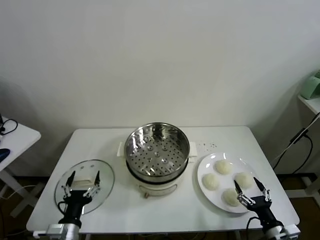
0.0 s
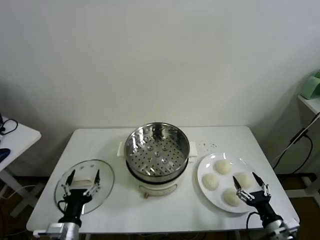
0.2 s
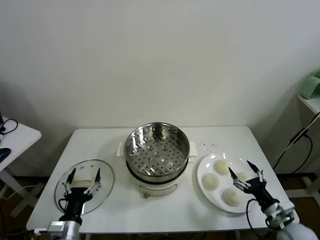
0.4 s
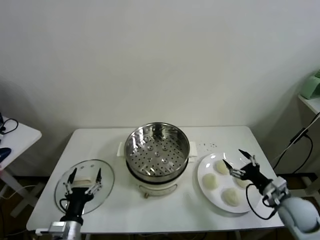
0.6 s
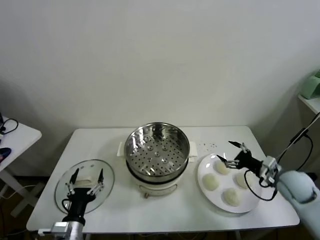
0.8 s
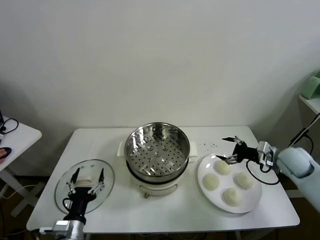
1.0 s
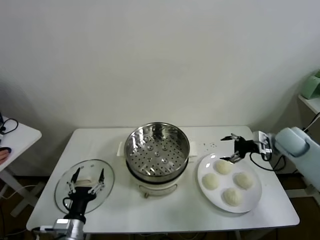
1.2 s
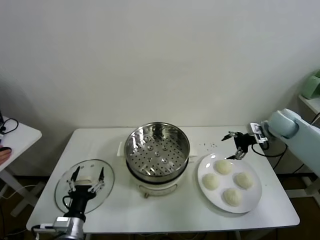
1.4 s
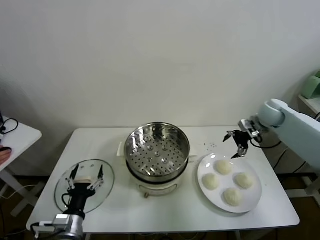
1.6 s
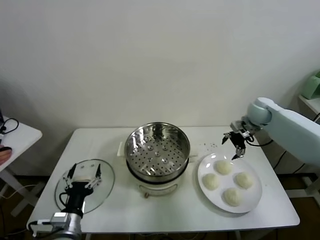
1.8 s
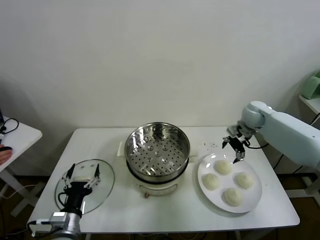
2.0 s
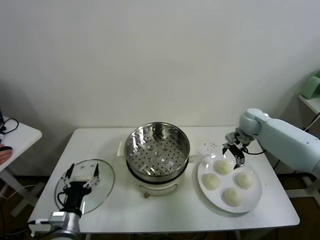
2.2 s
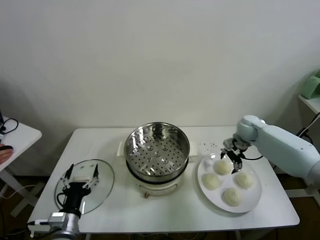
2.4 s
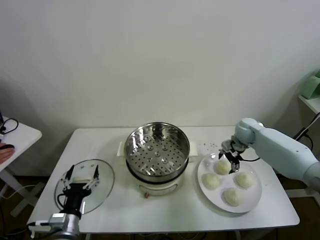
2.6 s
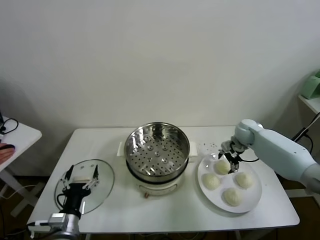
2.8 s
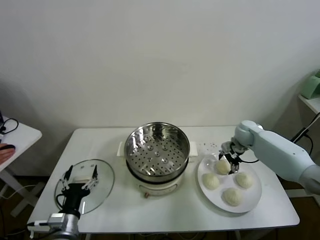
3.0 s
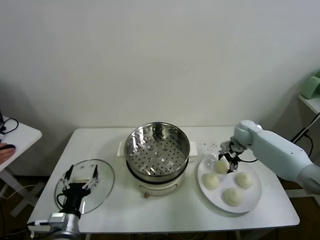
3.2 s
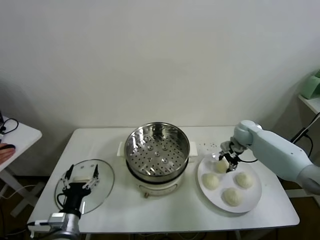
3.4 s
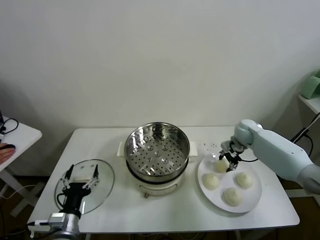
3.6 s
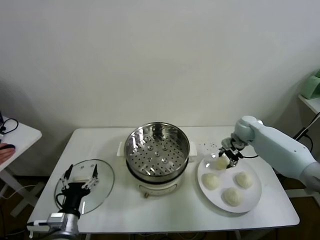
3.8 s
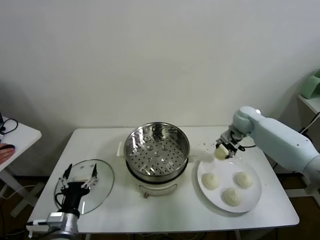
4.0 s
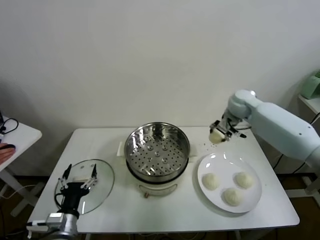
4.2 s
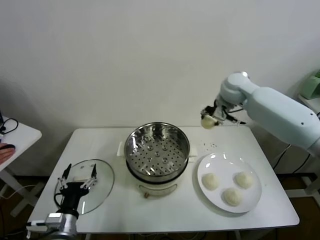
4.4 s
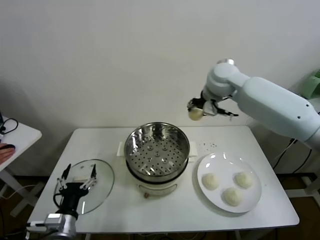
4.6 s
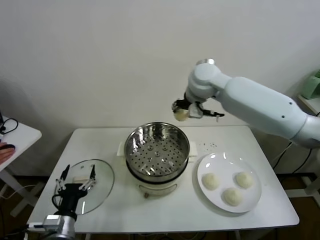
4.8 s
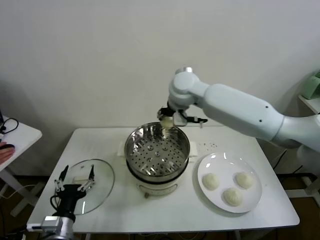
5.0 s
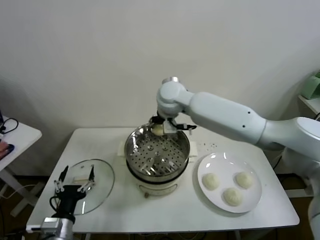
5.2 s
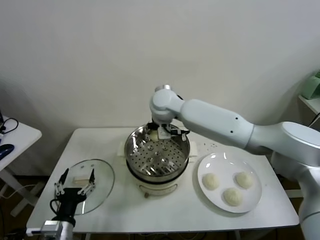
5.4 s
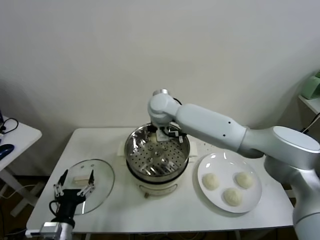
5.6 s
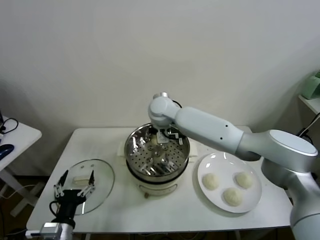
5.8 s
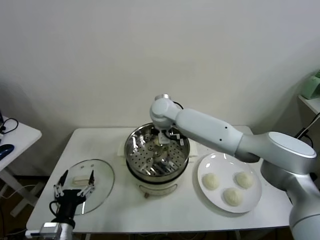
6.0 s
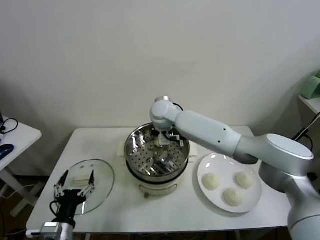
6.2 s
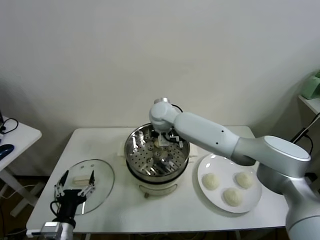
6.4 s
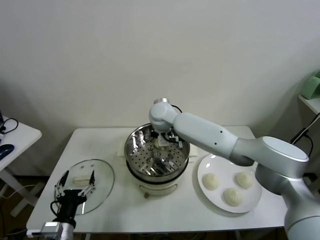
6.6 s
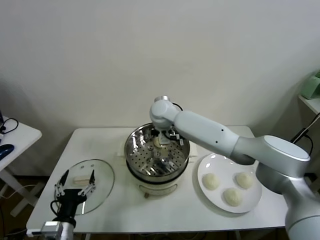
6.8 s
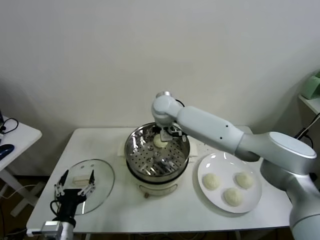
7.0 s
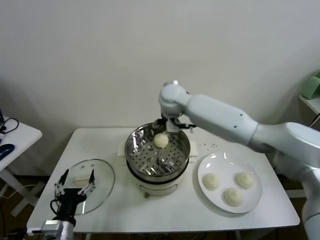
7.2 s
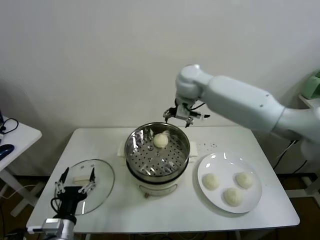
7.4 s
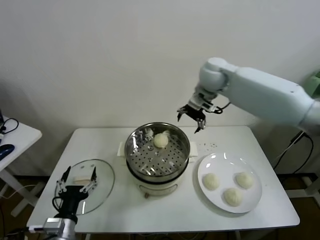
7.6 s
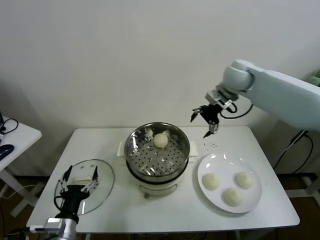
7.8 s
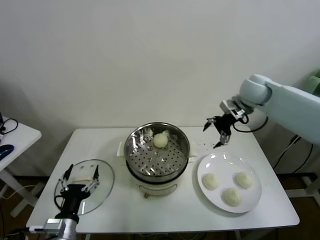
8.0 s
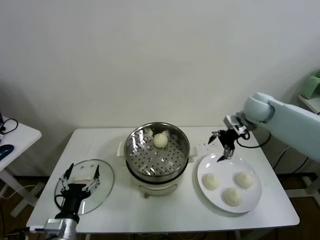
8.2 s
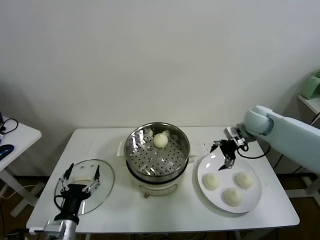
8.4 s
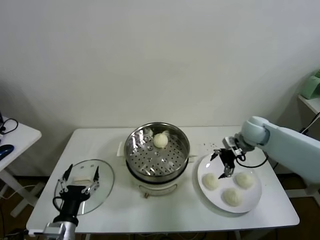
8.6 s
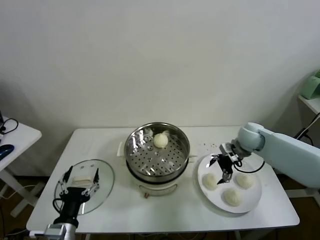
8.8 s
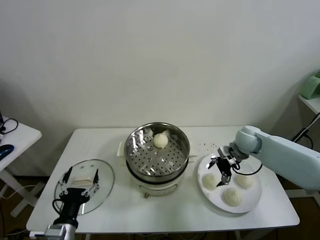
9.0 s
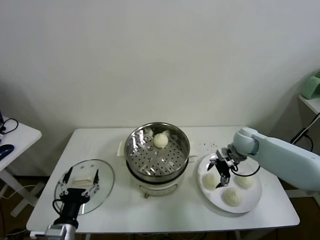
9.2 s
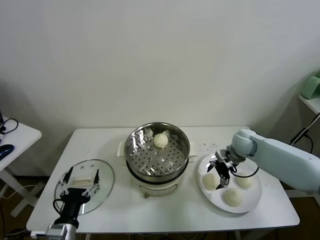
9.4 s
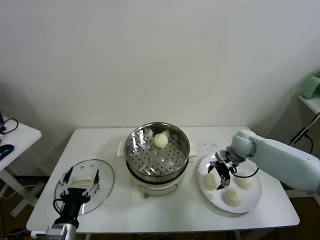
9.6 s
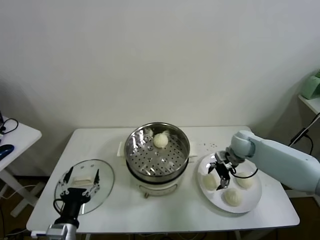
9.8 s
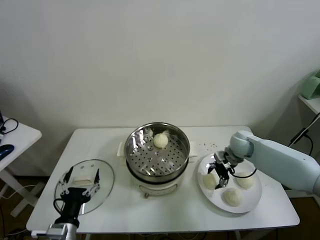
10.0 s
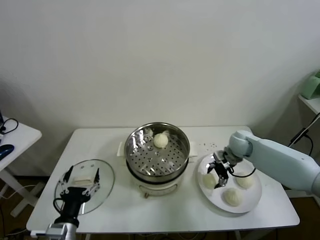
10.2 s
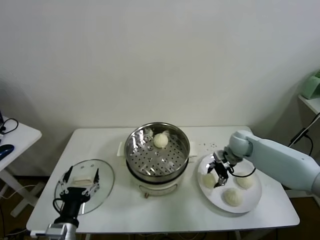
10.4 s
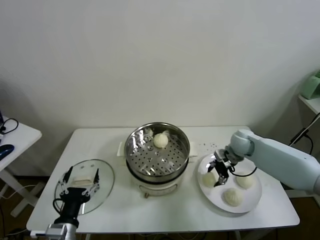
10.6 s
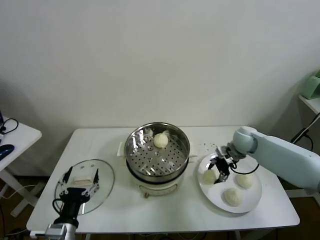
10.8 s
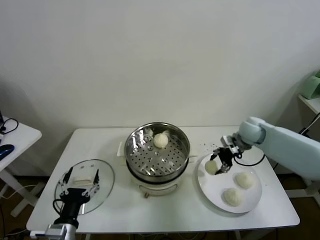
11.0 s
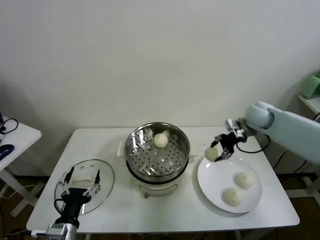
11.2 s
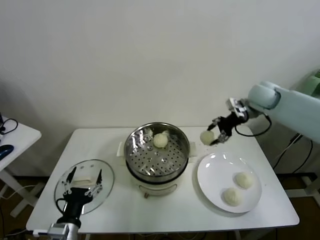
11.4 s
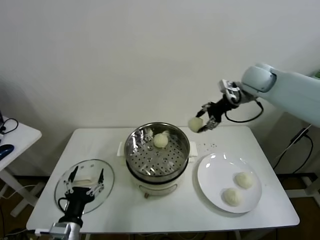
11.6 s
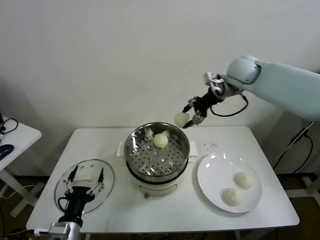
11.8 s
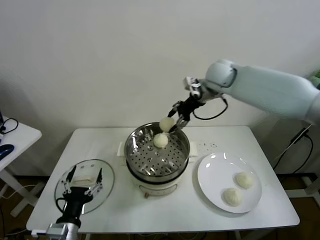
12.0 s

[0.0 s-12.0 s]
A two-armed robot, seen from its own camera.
Task of the whole recording: take steamed baozi put them in steamer.
Step, 0.0 to 3.2 s: Grasp the baozi in the plate with right gripper.
Step, 3.4 to 6.8 s: Place the baozi on the steamer with right gripper.
Step, 7.0 to 10.0 s: Grasp the baozi in the plate with right gripper.
1.6 to 3.0 s: The right gripper shifts some 10 cm downward.
3.0 to 4.4 s: The right gripper goes roughly 30 cm upward and to the left, and closes its fingers.
4.4 to 6.0 s: The right gripper shifts approximately 25 cm to the left and downward.
6.0 to 7.6 s: The right gripper moves to the right and upward, approximately 25 cm, and opens.
7.6 to 9.0 s: The right gripper heads downward and to the right, covering some 25 cm.
9.0 to 10.4 s: The right gripper closes up.
10.4 to 12.0 s: The right gripper shifts about 30 cm upward and to the left.

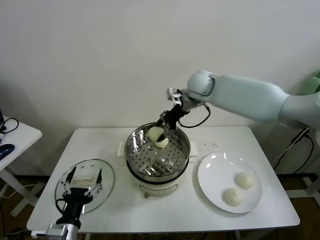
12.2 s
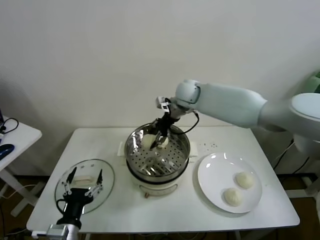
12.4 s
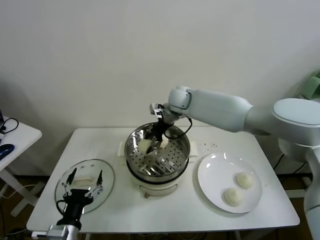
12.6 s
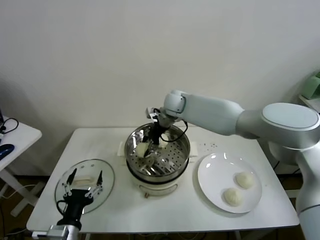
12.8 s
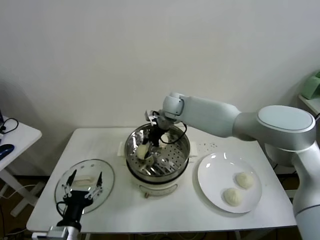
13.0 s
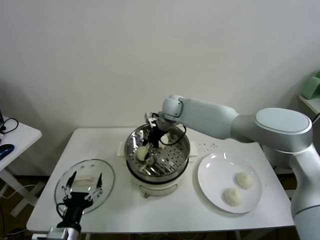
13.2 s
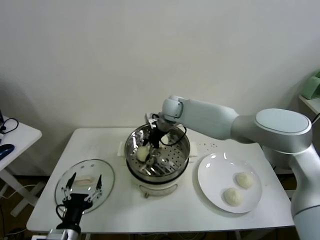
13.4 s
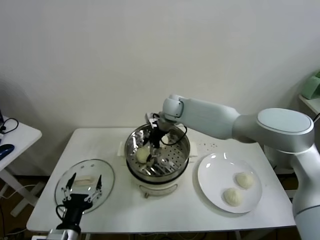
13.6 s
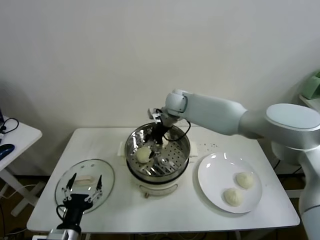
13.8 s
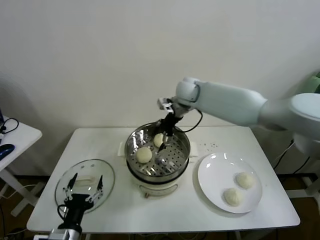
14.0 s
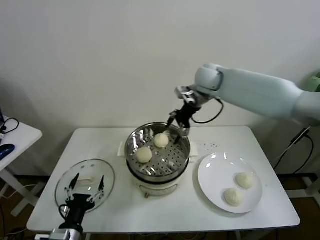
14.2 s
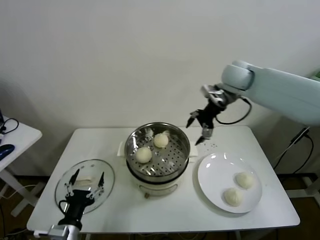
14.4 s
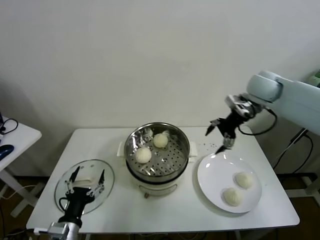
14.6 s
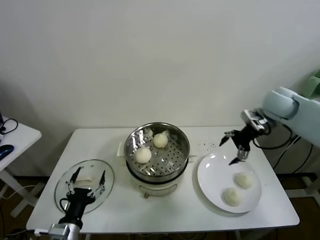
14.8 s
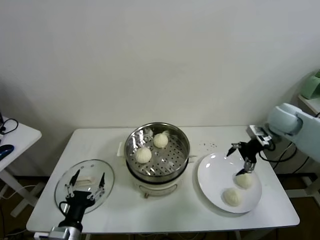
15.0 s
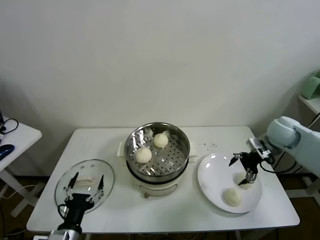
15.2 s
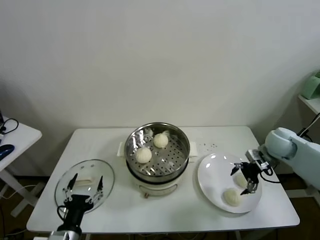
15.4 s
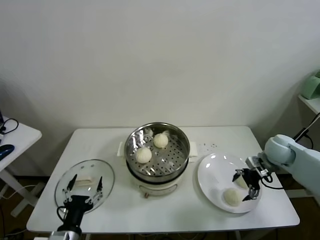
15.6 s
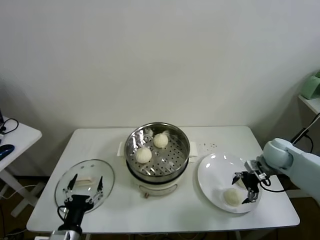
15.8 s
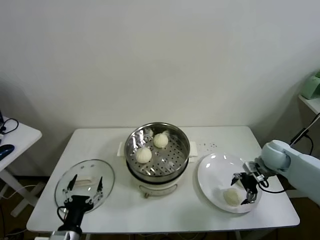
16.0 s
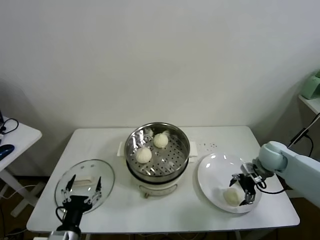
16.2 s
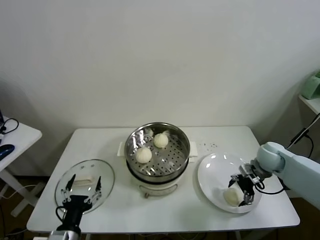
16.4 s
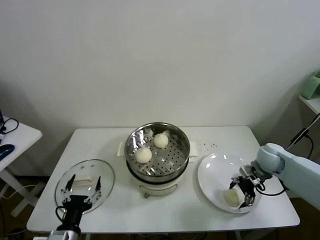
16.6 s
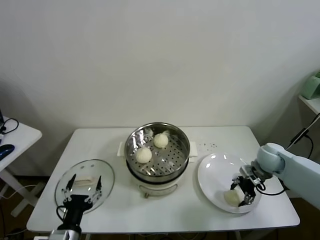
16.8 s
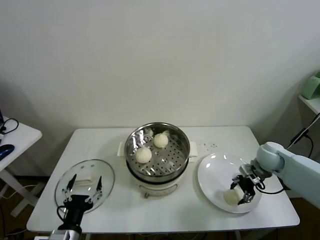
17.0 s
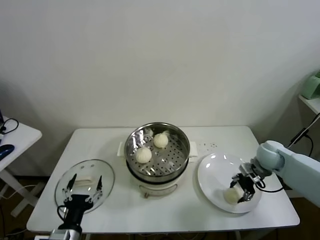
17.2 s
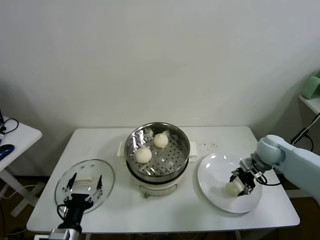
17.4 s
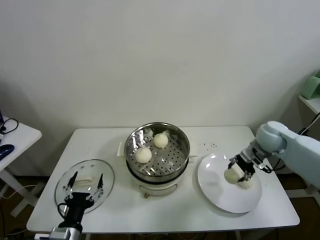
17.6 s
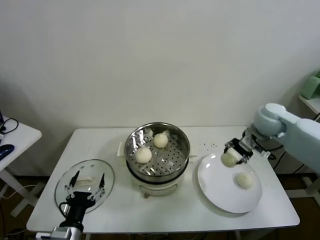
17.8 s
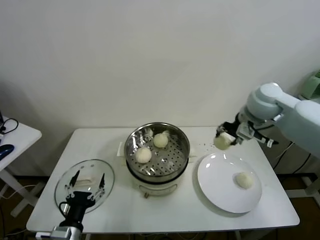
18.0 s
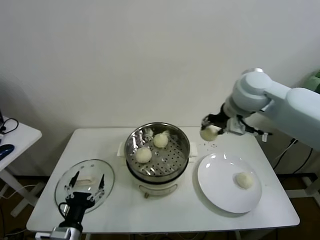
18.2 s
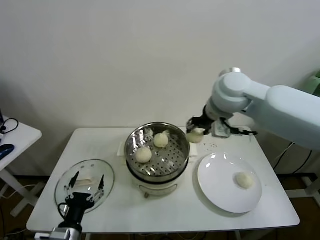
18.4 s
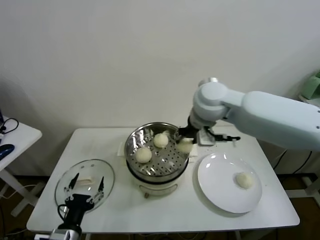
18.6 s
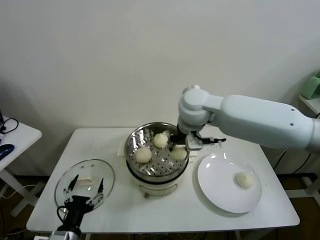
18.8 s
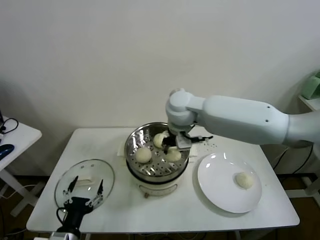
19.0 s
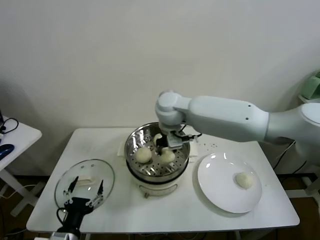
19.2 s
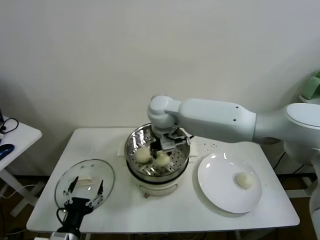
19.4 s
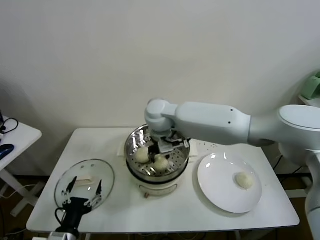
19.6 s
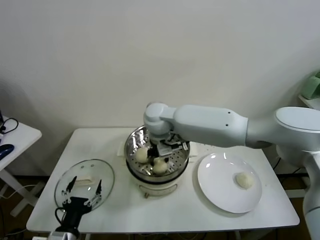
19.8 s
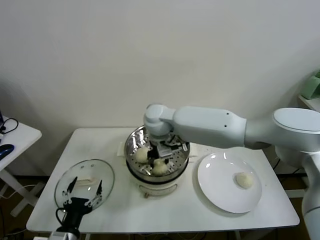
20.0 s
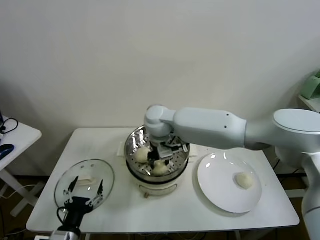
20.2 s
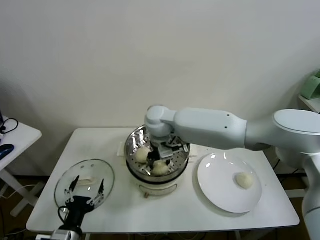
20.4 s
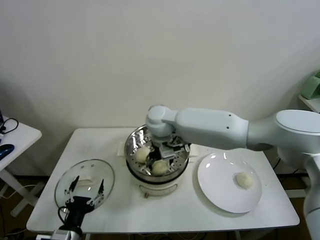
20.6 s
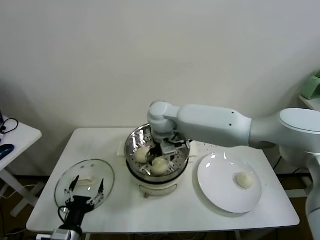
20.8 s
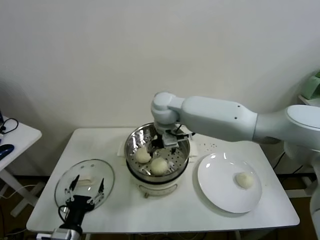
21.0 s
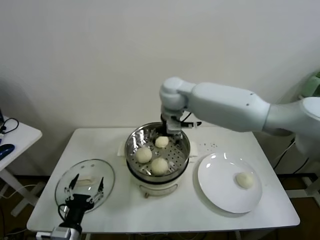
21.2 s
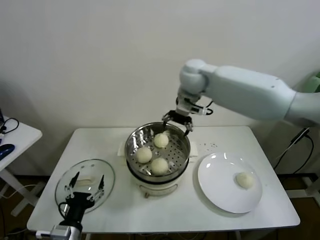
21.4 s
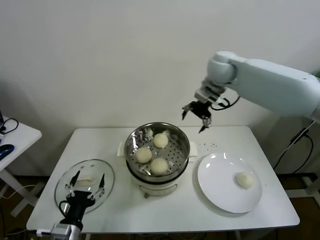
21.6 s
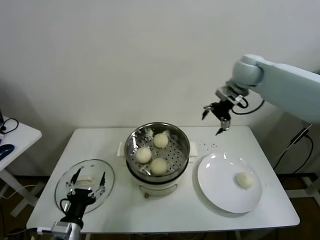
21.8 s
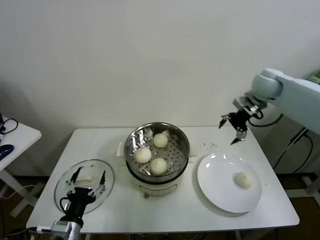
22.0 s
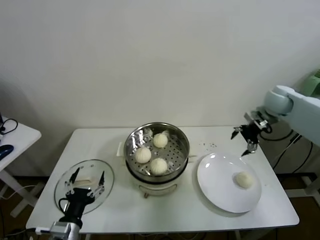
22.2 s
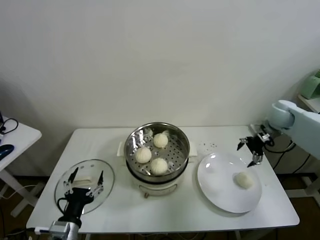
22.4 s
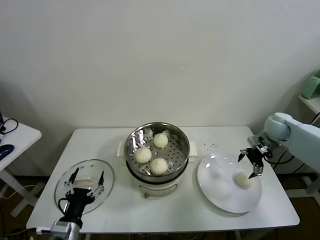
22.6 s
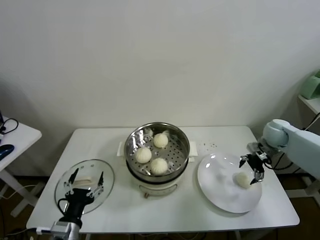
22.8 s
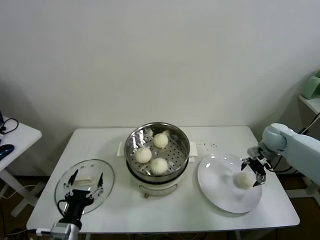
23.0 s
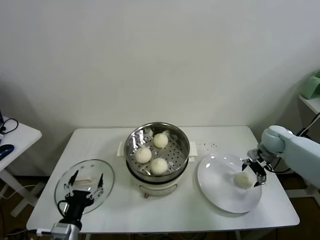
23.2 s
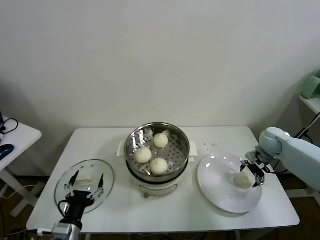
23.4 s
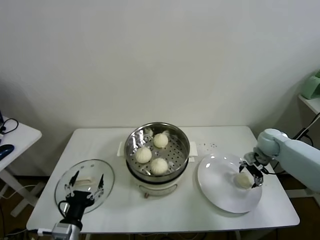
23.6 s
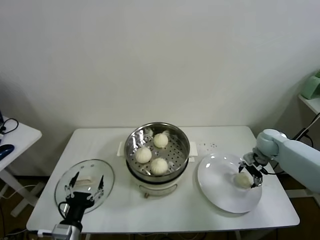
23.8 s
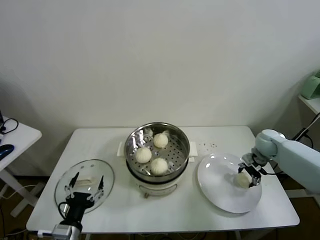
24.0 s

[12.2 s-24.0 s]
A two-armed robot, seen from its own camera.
Task of the whole recording: take steamed baozi put them in steamer.
Step, 13.6 to 16.8 s: Grasp the baozi in the plate with right gripper.
Step, 17.0 to 20.6 s: Place the baozi on the steamer with right gripper.
Step, 20.8 to 23.8 s: Grasp the baozi in the plate with right gripper.
12.2 to 13.6 s: The right gripper goes about 10 cm downward and to the left, and opens its fingers.
13.6 to 15.2 s: The right gripper travels to the right by about 35 cm.
15.2 to 16.6 s: The right gripper goes approximately 10 cm downward.
16.6 to 18.2 s: The right gripper shifts approximately 35 cm upward and to the left, and closes.
18.2 to 19.6 s: The right gripper goes approximately 25 cm to the left and downward.
19.6 to 21.0 s: The right gripper opens.
21.0 to 22.6 s: The right gripper travels to the right by some 40 cm.
22.6 to 24.0 s: The right gripper heads downward, covering approximately 10 cm, and closes its fingers.
